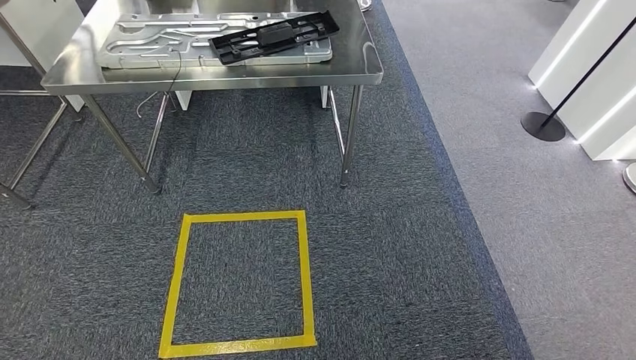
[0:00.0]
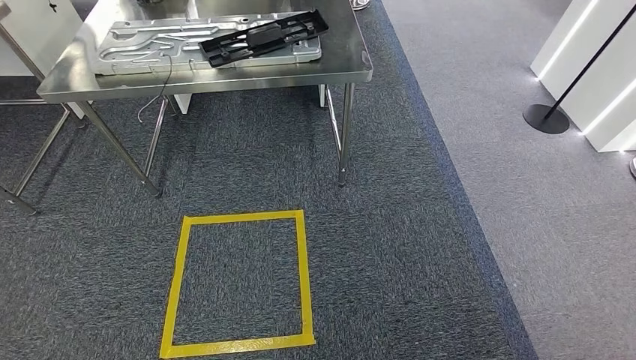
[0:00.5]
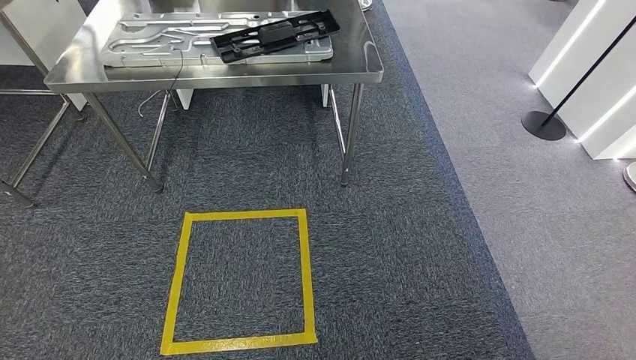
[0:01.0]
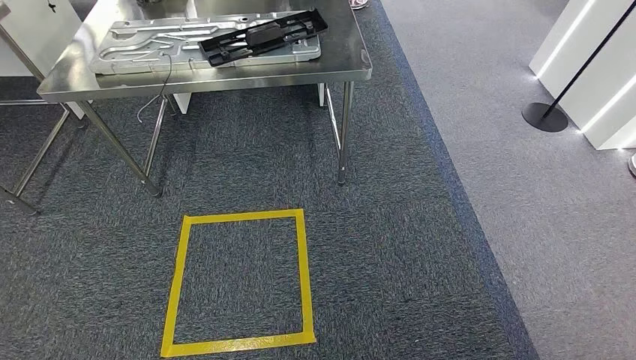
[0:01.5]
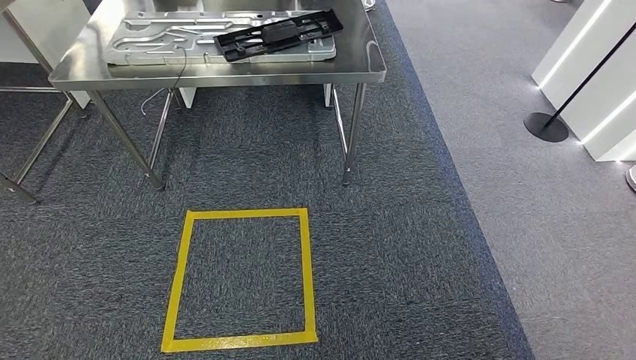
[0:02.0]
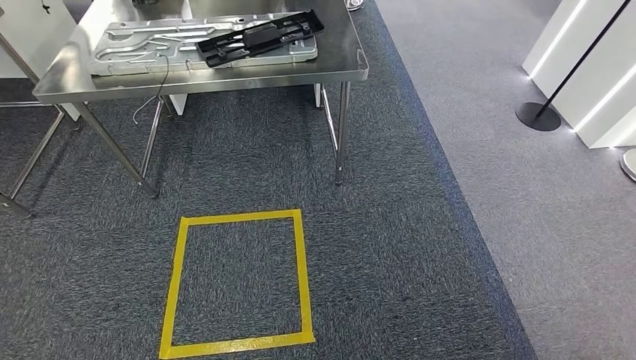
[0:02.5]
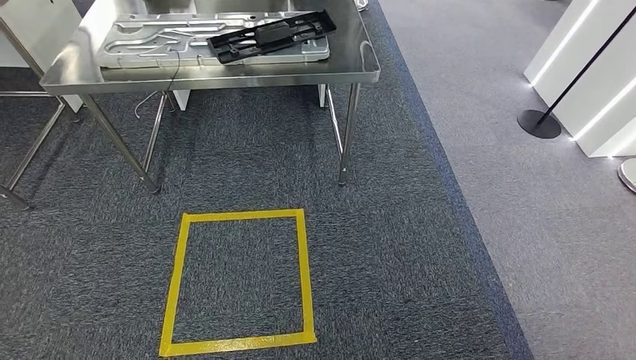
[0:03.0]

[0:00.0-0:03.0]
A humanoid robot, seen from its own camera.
Step, 0:00.0 to 0:03.0: Move to the initial position of the shelf.
0:00.0 to 0:01.5: The right hand goes about 5 cm backward.
0:01.5 to 0:03.0: The left hand goes backward and returns, roughly 10 cm each way. The right hand goes forward and returns, approximately 5 cm each way.
